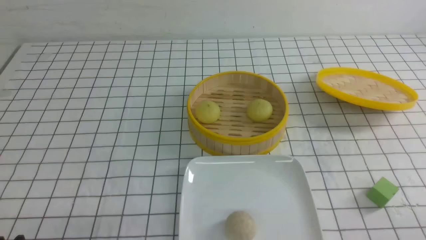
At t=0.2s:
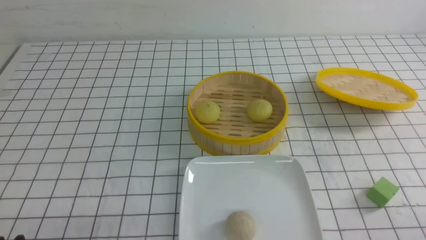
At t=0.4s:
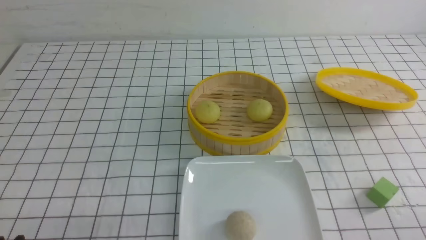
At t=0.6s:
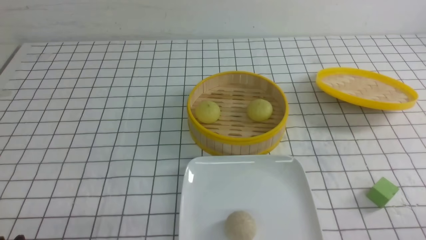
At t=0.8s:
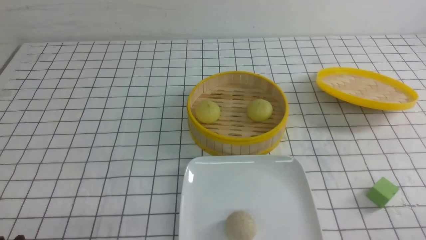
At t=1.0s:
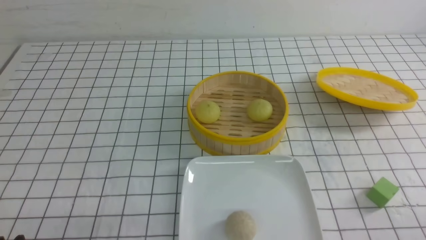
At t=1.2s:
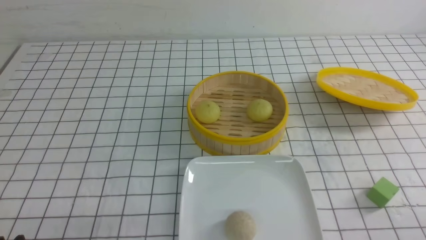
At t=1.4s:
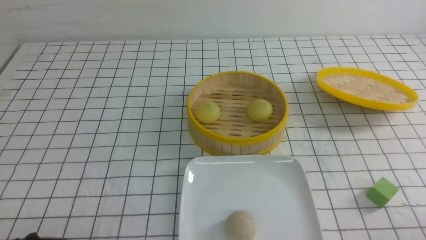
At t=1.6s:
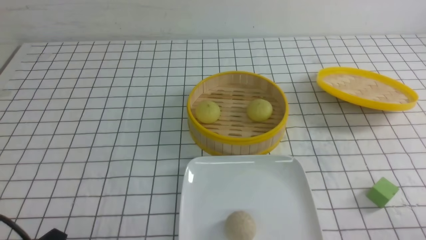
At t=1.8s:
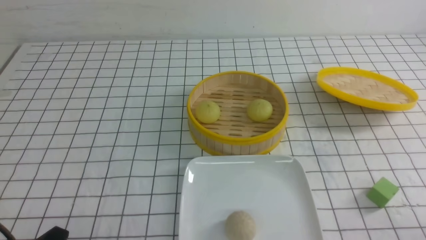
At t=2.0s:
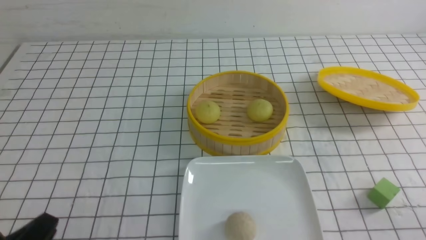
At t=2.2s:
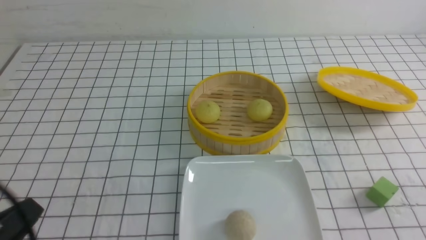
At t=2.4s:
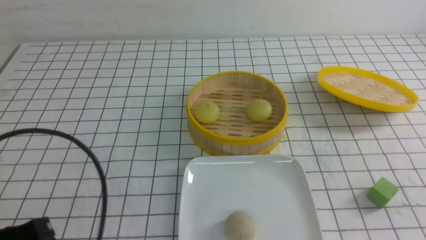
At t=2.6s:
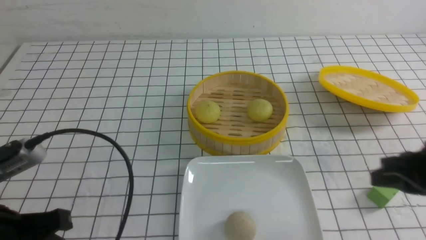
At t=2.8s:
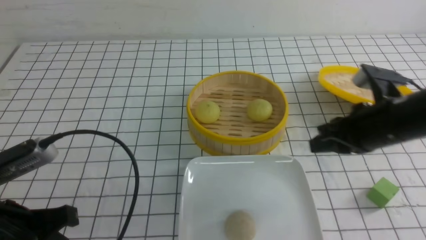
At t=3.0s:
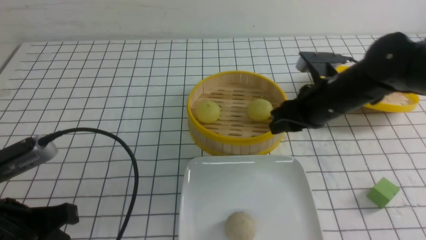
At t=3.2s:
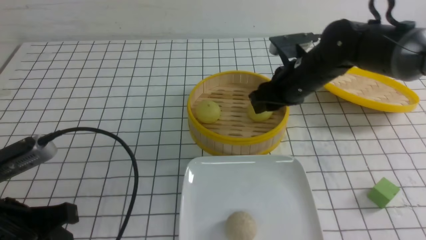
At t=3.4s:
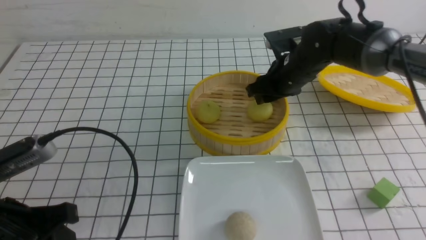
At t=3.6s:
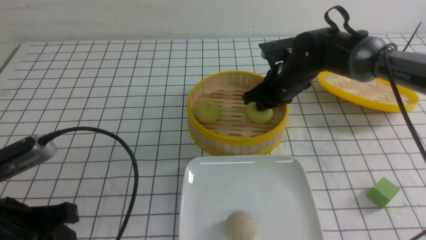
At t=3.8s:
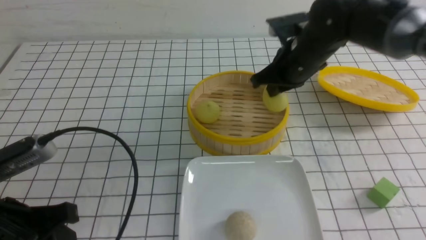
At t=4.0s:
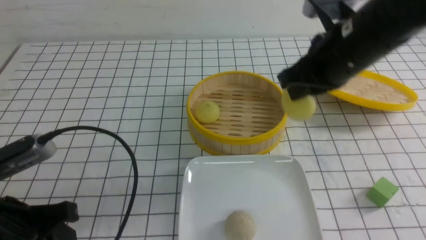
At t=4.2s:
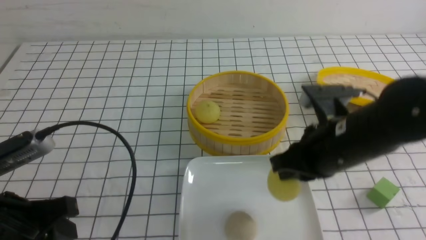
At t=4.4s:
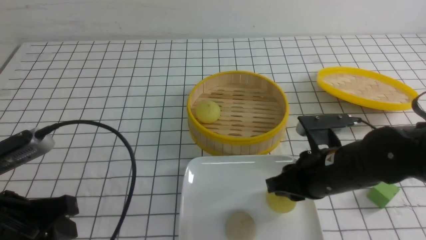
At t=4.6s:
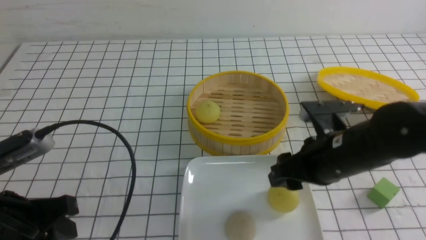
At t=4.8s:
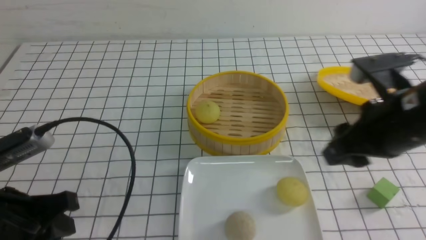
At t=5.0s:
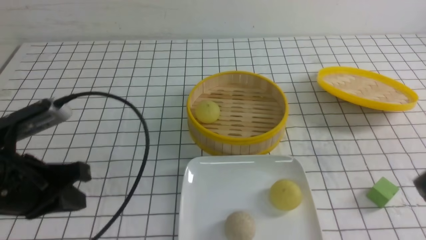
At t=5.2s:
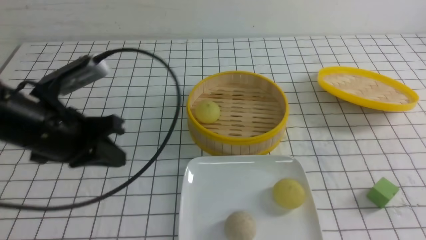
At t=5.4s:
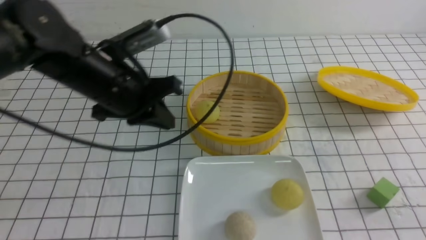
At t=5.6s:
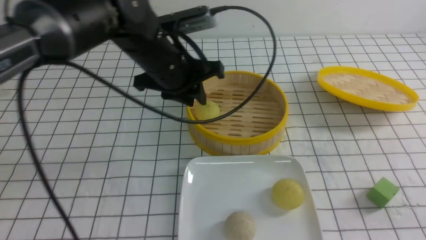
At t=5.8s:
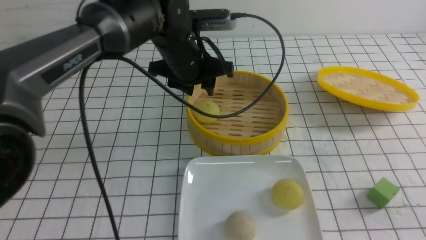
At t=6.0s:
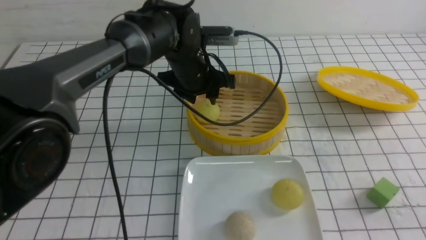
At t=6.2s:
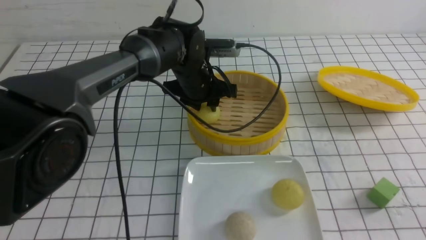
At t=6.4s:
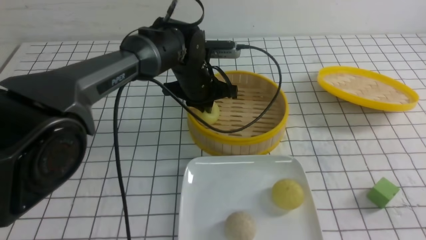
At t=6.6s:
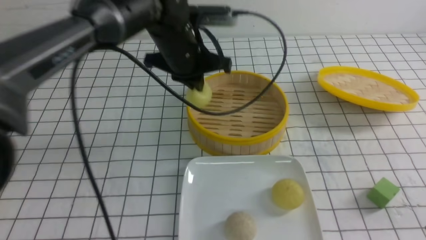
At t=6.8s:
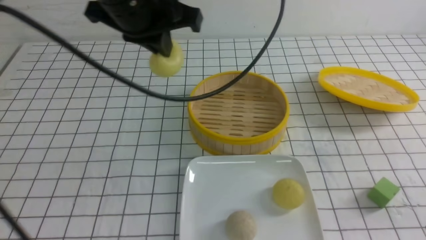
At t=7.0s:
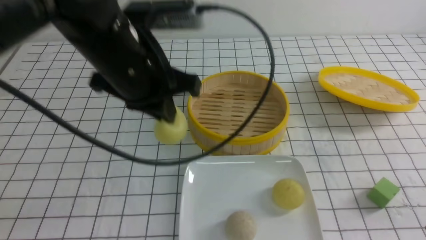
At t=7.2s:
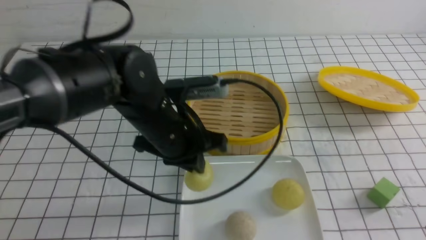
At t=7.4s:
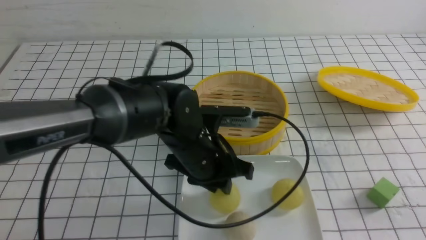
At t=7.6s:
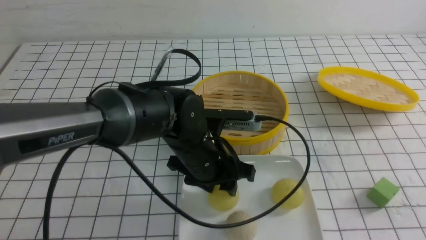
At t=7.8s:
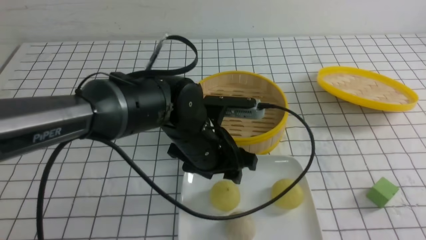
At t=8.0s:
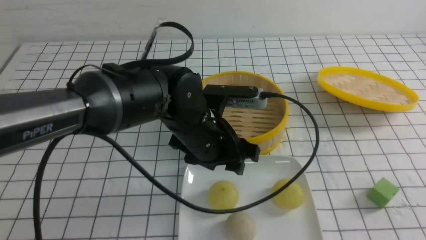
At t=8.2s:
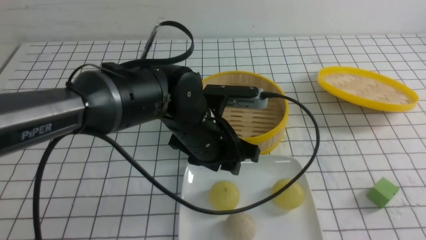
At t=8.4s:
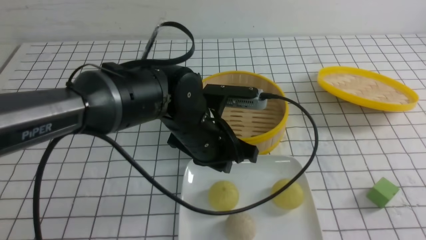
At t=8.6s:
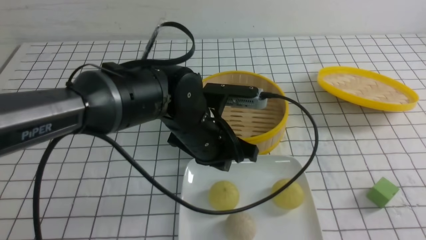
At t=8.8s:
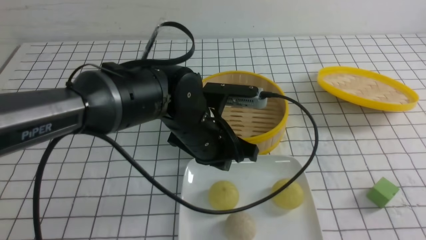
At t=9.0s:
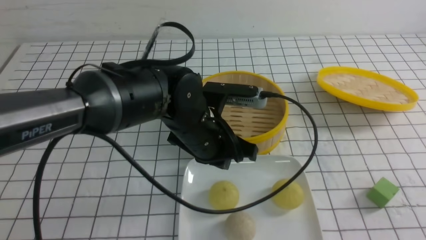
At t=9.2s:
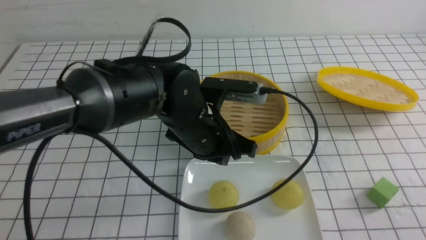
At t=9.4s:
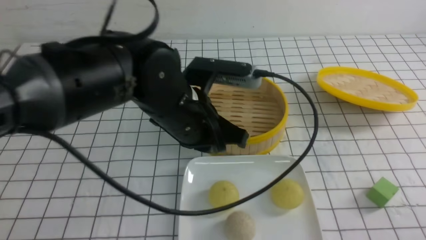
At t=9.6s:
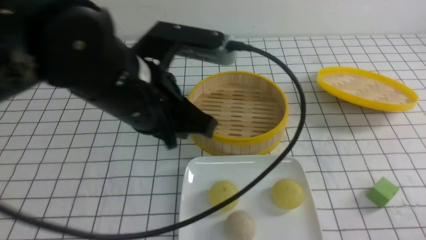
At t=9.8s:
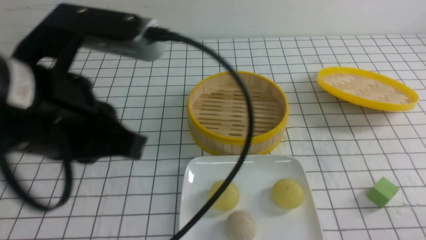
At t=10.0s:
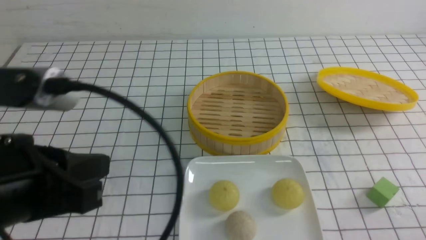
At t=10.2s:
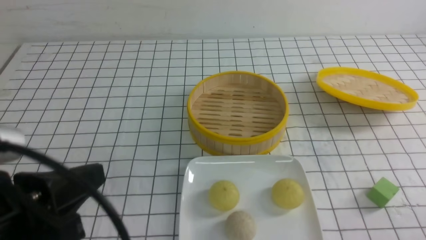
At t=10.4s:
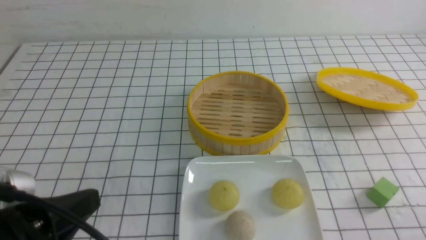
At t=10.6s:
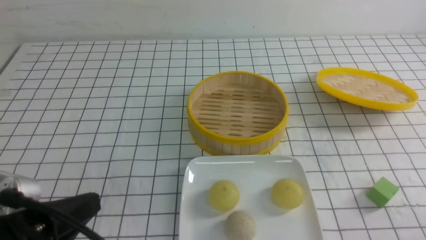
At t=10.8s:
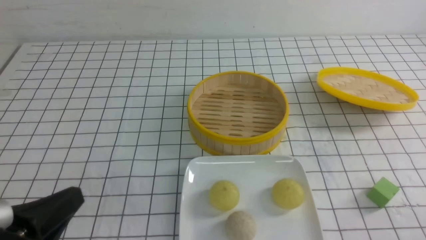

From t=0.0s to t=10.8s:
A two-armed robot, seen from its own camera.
Step, from t=0.0s to t=3.6s: use the right arm to grab the steamed stuffed bun that is closest to it.
Step, from t=3.8s to t=4.6s: use the right arm to put the steamed stuffed bun into the plate.
Step, from t=4.8s to t=6.2s: use the left arm to grab the steamed stuffed bun that is closest to it.
Step, from t=6.4s to t=7.6s: use the left arm to put the steamed stuffed bun into the plate.
From t=1.6s to t=3.0s: The left gripper moves forward and upward, some 10 cm. The right gripper heads forward and to the left, covering approximately 35 cm, and closes, then reopens.
From t=3.0s to t=4.6s: The right gripper moves backward, some 10 cm, and closes, then opens again.
From t=4.6s to t=6.2s: The left gripper travels forward and to the right by approximately 35 cm, and closes and opens again. Meanwhile the right gripper travels backward and to the right by approximately 20 cm, and closes.
From t=6.2s to t=7.8s: The right gripper is displaced backward by approximately 10 cm. Meanwhile the left gripper goes approximately 15 cm backward, moves roughly 15 cm upward and comes back, and opens.
From t=7.8s to t=9.2s: The right gripper heads downward, covering about 10 cm. The left gripper closes up.
From t=9.2s to t=10.8s: The left gripper goes approximately 30 cm backward and to the left.

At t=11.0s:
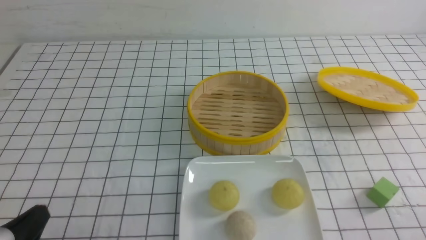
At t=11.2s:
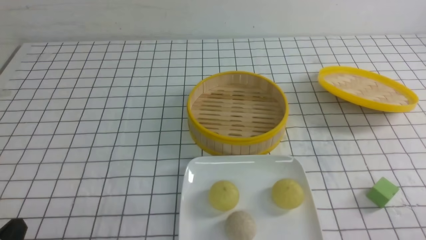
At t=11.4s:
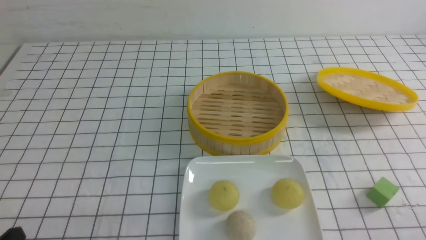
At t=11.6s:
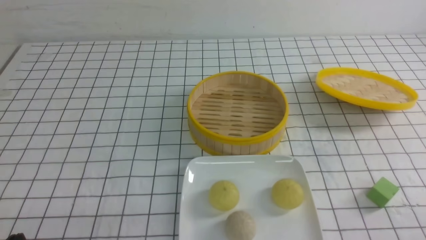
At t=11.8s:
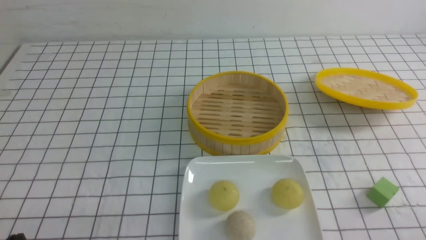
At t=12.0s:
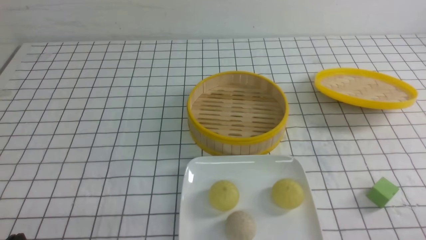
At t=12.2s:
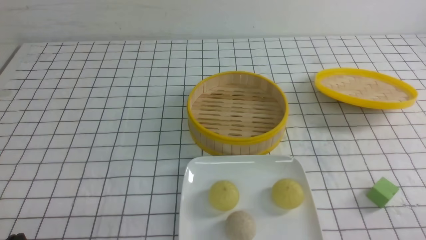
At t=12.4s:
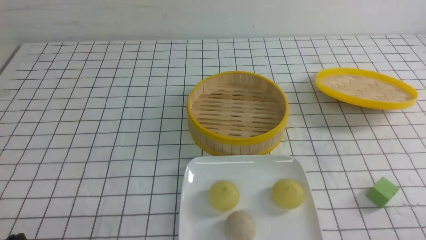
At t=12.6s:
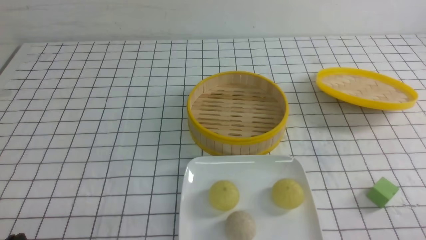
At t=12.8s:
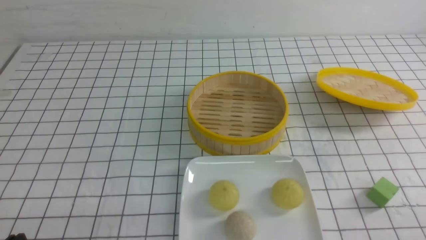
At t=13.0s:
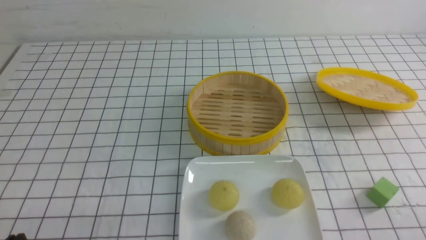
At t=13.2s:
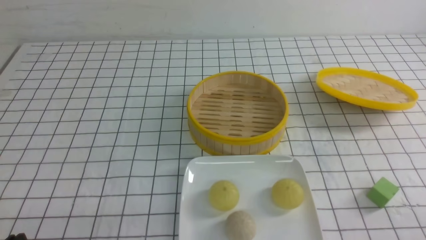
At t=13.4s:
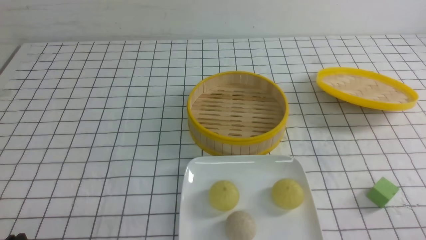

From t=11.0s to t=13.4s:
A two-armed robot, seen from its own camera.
From t=11.0s to t=12.2s: The grippers stay close to where they were, moving slightly.
From t=12.2s to t=13.4s: The two grippers keep their place.
